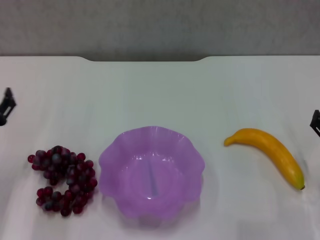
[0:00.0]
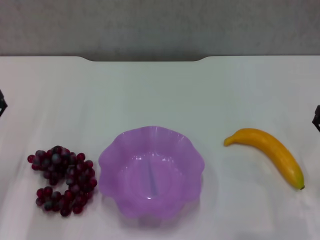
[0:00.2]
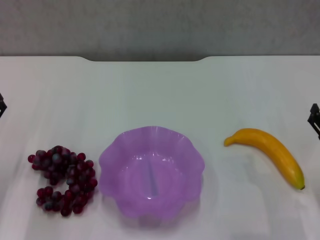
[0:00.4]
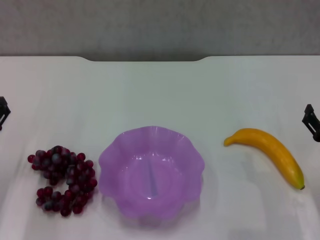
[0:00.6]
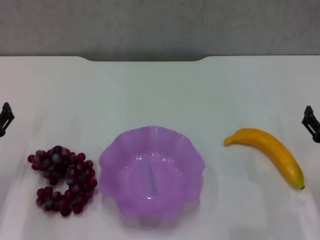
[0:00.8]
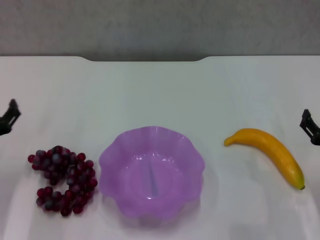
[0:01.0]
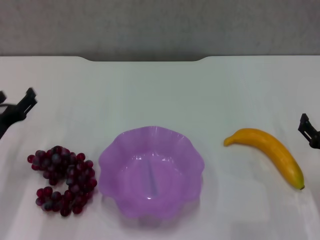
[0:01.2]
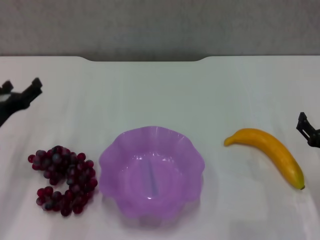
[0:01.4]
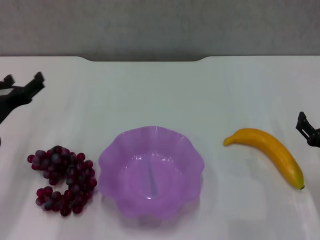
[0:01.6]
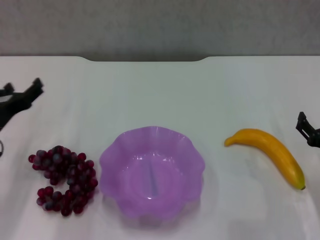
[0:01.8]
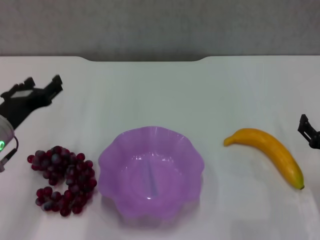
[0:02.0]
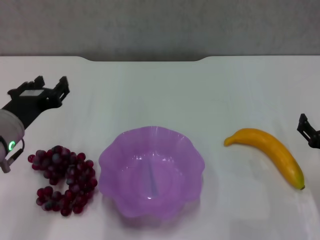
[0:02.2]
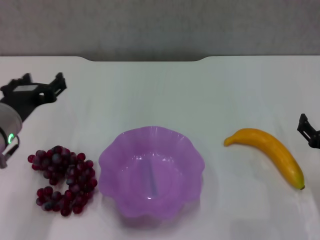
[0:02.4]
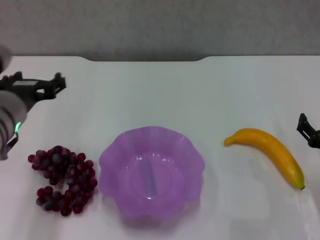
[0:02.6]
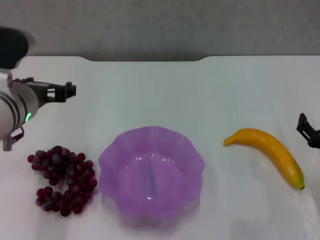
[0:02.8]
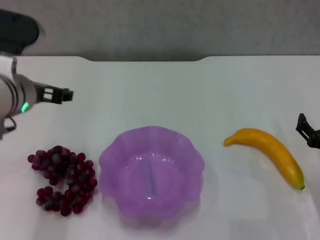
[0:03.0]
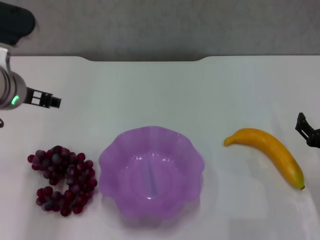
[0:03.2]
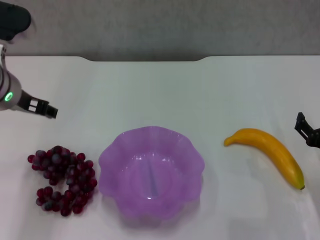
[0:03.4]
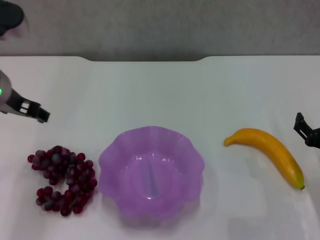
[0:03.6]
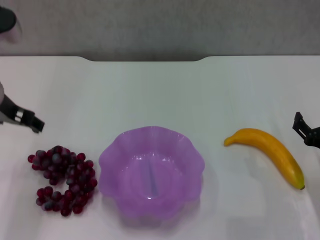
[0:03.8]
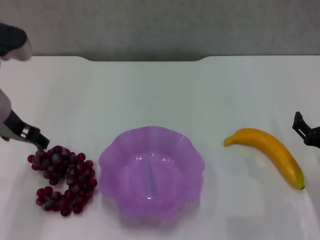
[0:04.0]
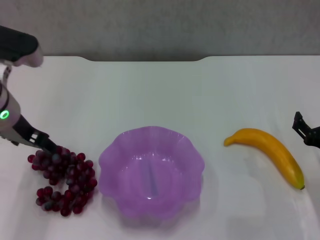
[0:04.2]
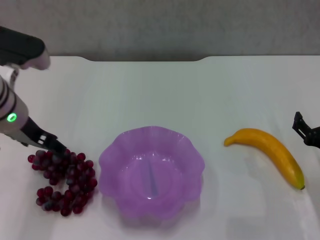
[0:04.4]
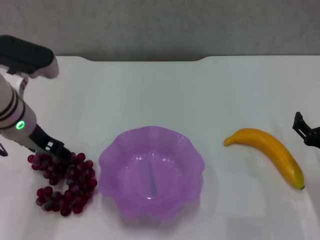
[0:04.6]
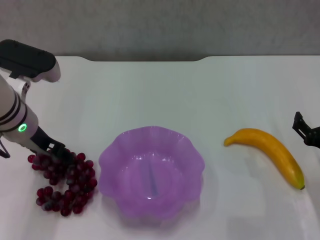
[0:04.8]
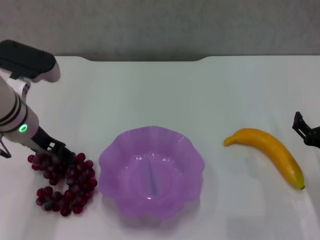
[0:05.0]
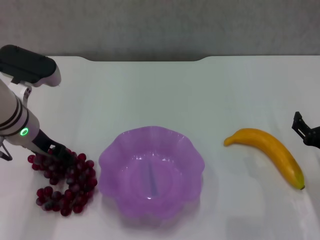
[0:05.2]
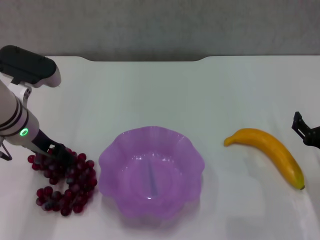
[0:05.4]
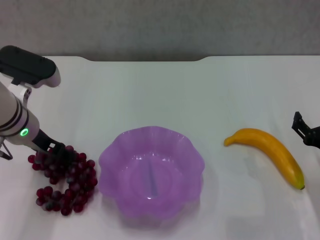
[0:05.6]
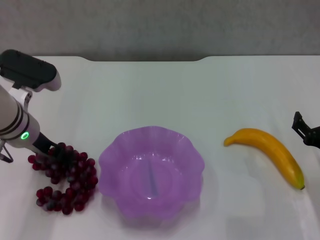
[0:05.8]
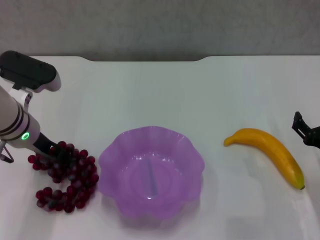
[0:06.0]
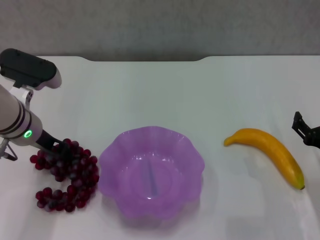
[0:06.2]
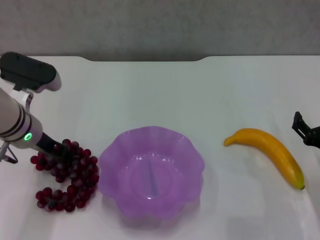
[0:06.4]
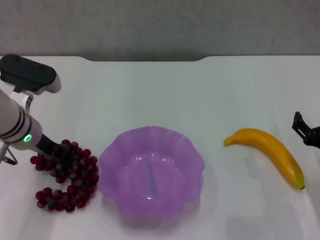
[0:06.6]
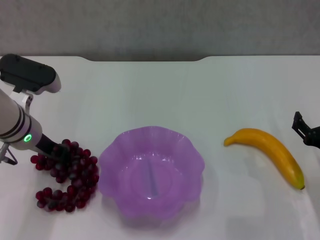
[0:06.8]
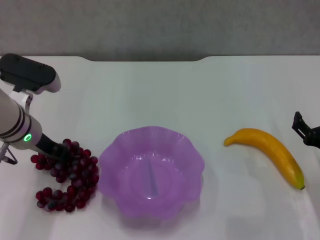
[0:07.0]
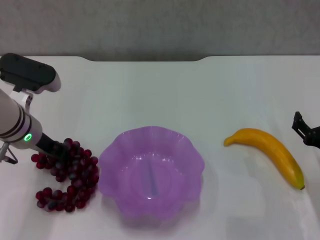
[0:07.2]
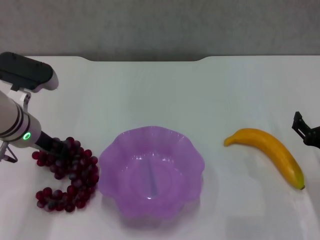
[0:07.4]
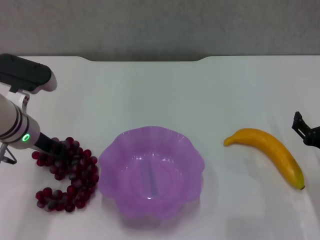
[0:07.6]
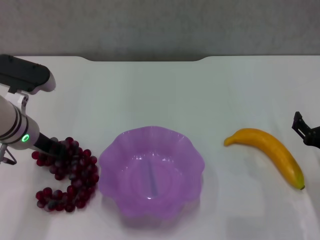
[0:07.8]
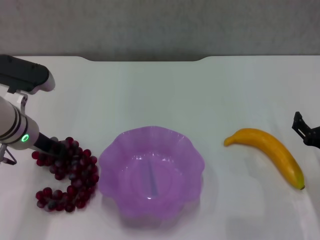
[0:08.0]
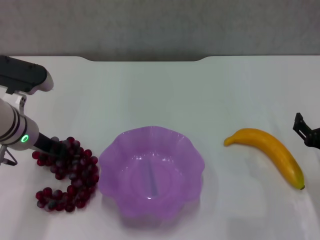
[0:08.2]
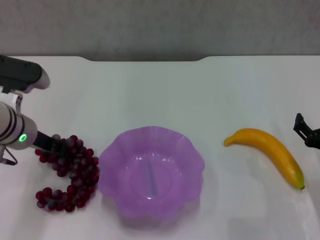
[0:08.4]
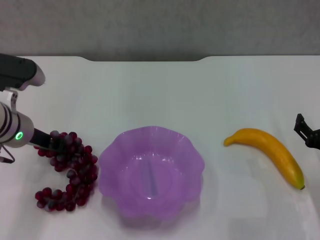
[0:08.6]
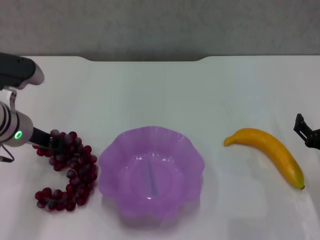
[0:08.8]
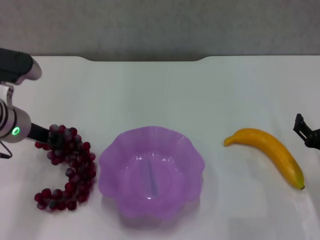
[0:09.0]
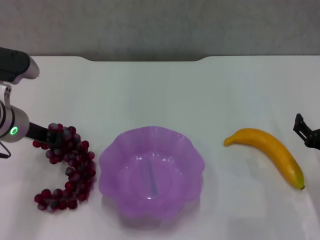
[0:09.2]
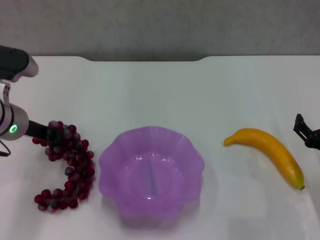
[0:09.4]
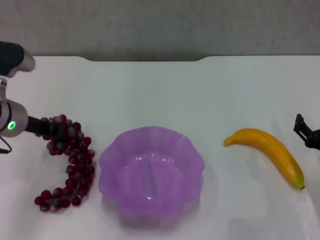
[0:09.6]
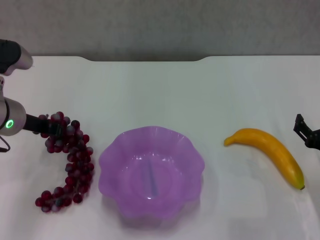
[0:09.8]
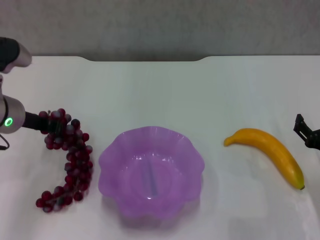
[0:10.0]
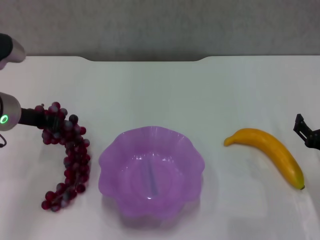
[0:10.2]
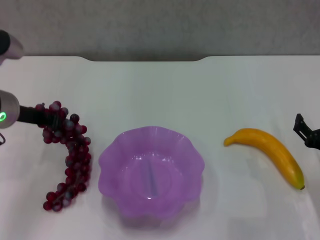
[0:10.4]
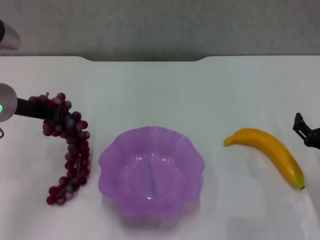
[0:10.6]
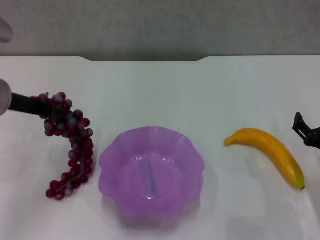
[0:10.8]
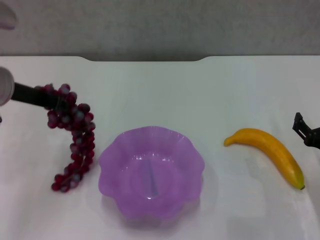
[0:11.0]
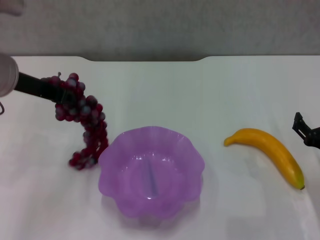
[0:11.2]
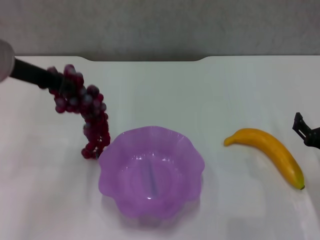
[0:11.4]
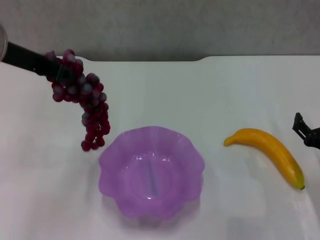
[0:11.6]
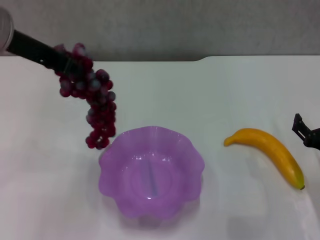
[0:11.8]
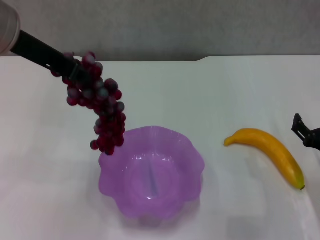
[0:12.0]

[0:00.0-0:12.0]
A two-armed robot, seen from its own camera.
Step, 0:00.0 to 0:08.0: Grasp the grape with left gripper.
0:00.0 to 0:01.6: The left gripper shifts by approximately 5 cm.
0:01.6 to 0:03.0: The left gripper heads upward and to the right, covering some 15 cm.
0:04.4 to 0:06.0: The left gripper moves downward, roughly 5 cm.
0:06.0 to 0:07.6: The left gripper closes.
0:07.6 to 0:10.4: The grippers stay close to where they were, moving slightly.
0:10.4 to 0:12.0: The left gripper travels upward by roughly 15 cm.

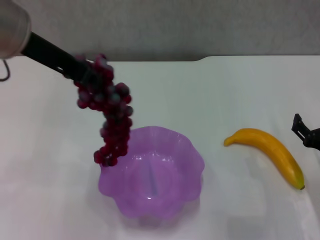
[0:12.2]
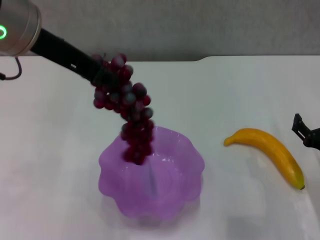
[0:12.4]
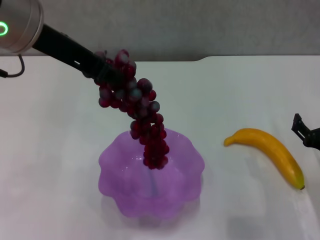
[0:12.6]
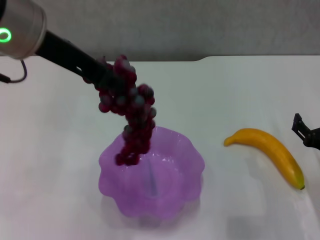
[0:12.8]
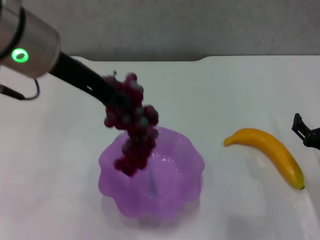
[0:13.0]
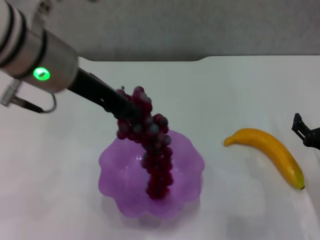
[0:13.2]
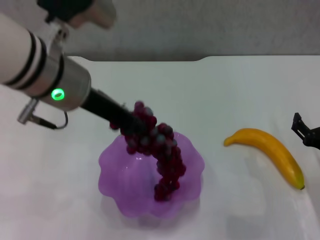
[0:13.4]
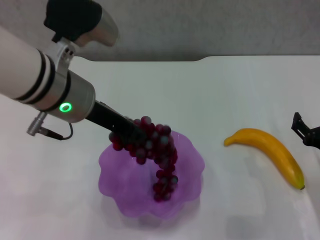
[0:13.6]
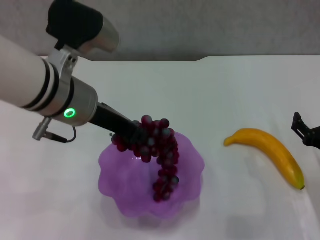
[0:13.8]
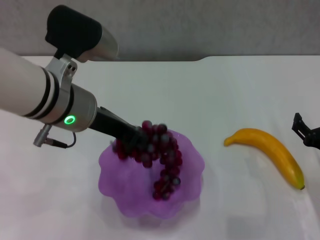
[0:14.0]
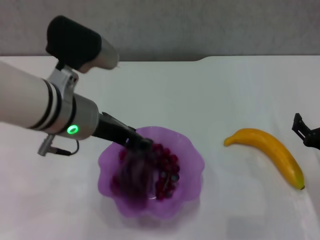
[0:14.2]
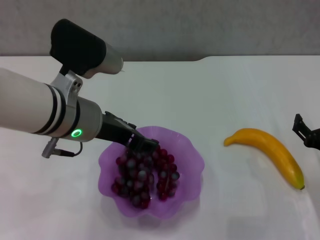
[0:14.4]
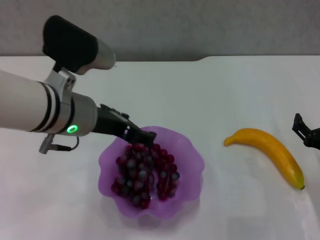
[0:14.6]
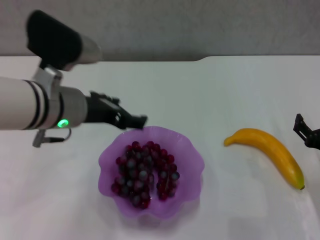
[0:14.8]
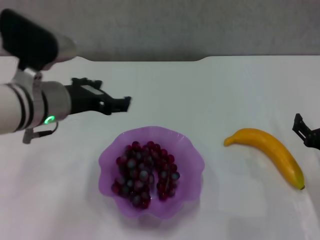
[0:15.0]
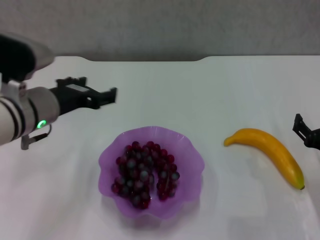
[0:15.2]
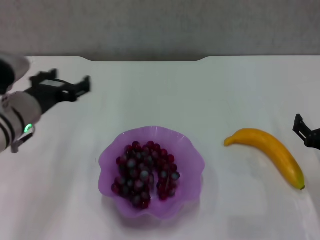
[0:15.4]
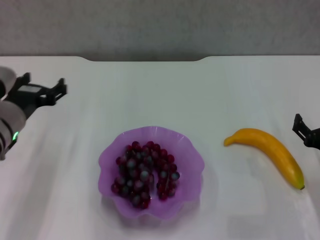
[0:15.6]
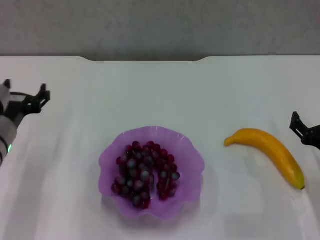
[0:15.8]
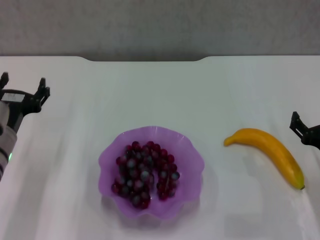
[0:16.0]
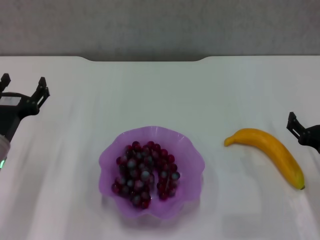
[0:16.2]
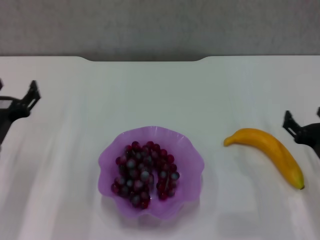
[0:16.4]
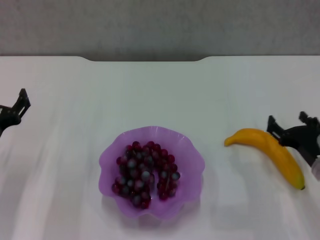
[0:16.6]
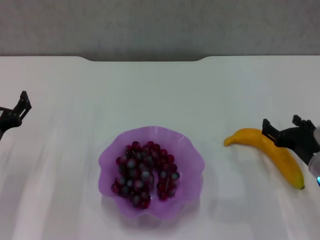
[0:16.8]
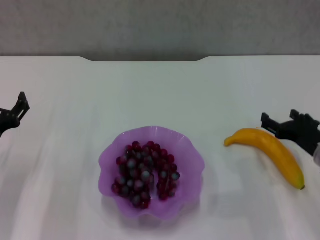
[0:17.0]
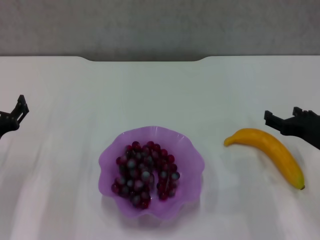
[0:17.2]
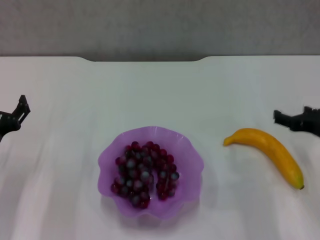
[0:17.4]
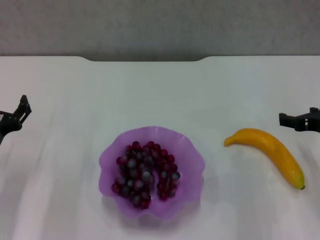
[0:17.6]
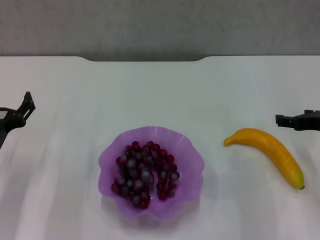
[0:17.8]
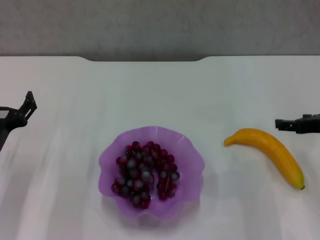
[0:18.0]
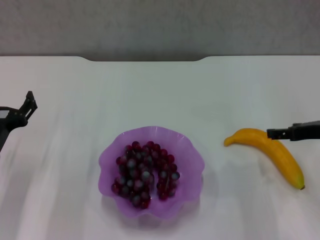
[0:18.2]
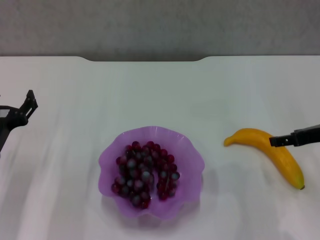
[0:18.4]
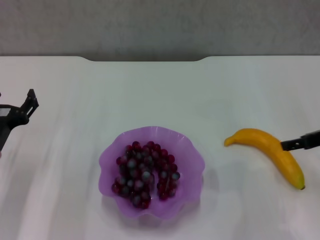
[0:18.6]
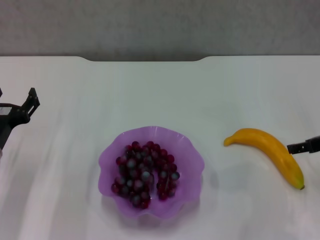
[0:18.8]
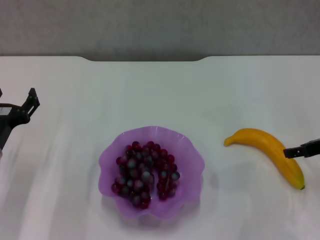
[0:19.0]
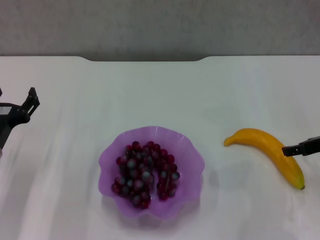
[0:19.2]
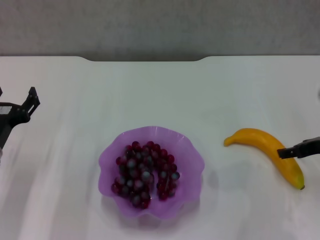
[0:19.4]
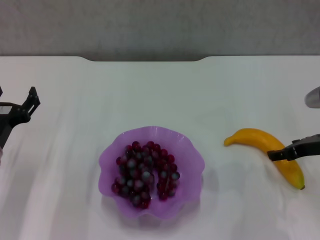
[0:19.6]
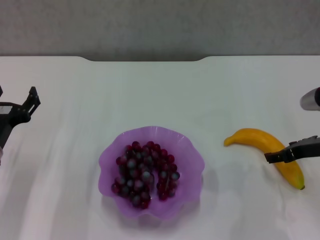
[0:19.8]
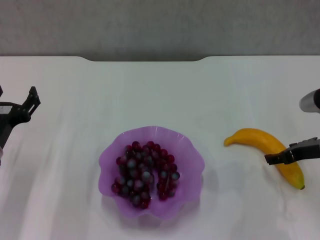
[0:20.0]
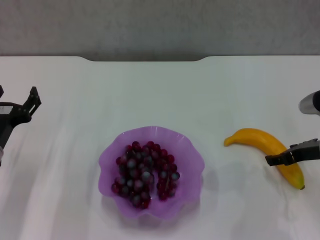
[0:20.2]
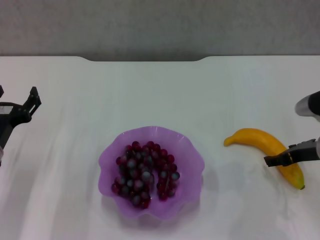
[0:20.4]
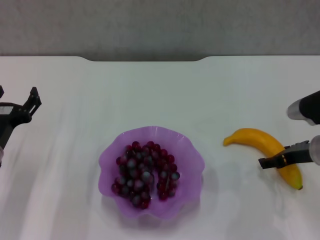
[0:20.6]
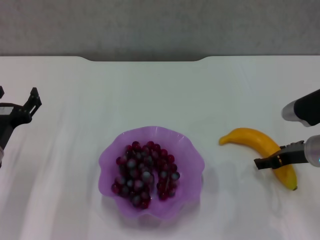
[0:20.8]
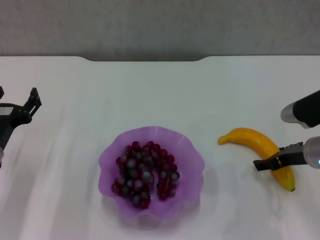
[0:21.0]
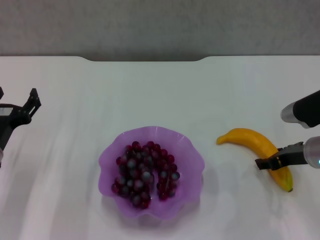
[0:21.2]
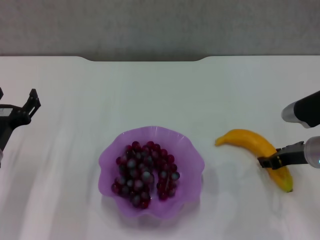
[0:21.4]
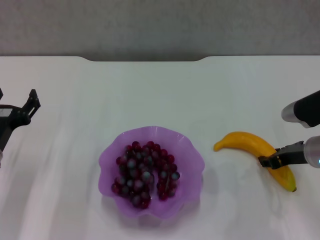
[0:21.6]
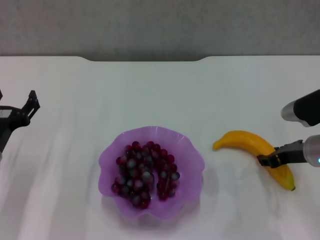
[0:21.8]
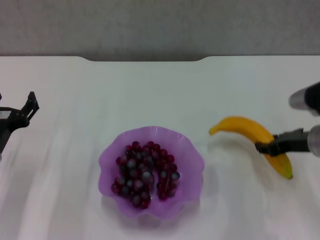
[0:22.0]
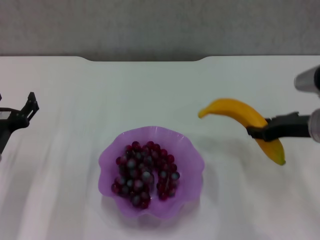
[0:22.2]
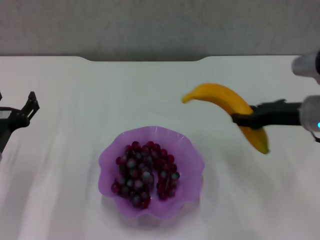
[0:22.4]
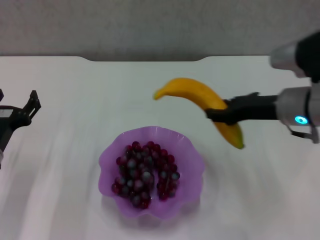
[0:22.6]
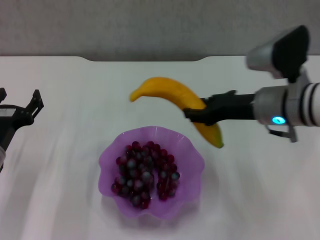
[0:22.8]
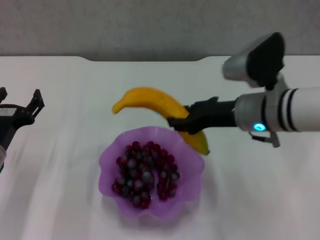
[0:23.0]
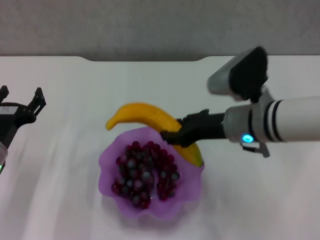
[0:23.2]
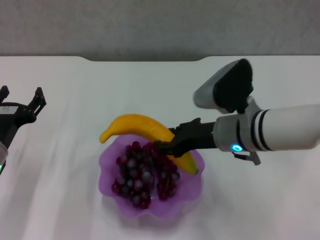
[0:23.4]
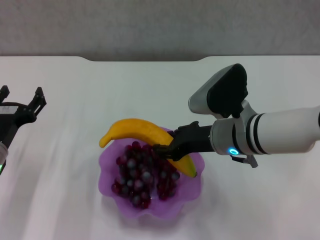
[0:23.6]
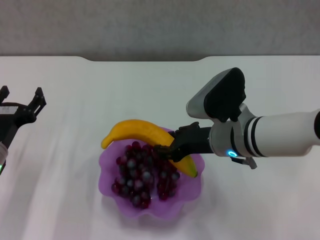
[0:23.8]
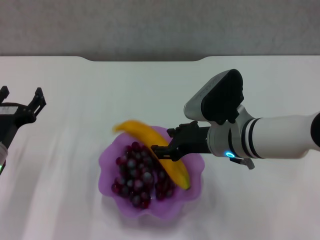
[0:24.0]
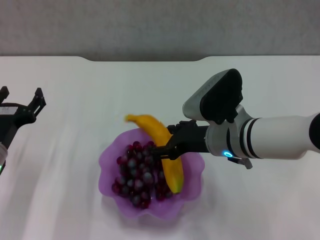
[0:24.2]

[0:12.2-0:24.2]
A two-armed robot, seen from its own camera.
Step, 0:12.2 to 0:14.6: Place the grape in the purple plate with left gripper.
Step, 0:14.8 to 0:21.4: Grasp the banana with right gripper.
0:12.2 to 0:13.8: The left gripper heads downward, covering some 10 cm.
0:13.8 to 0:15.2: The left gripper shifts approximately 10 cm downward and to the left, and opens up.
0:15.2 to 0:16.6: The left gripper is displaced downward and to the left by about 15 cm.
0:16.6 to 0:18.2: The right gripper is displaced upward and forward by roughly 10 cm.
0:18.2 to 0:19.8: The grippers stay close to where they were, moving slightly.
0:19.8 to 0:21.2: The grippers stay close to where they were, moving slightly.
0:21.2 to 0:22.6: The right gripper heads upward and to the left, covering about 10 cm, and closes.
0:22.6 to 0:24.2: The right gripper travels to the left and downward by some 10 cm, and opens.
